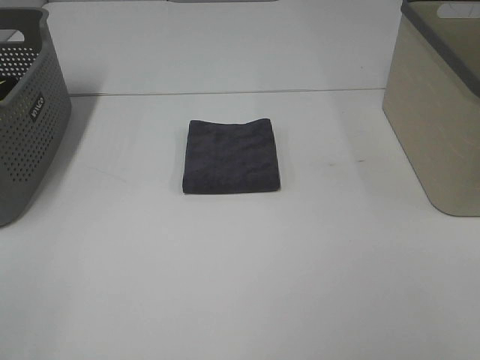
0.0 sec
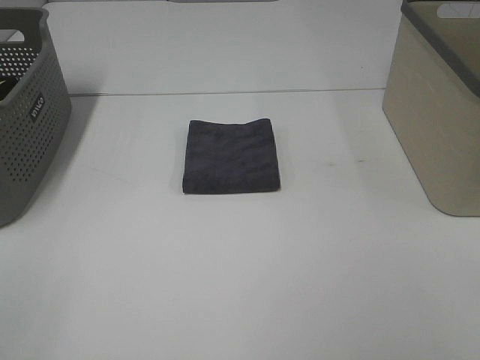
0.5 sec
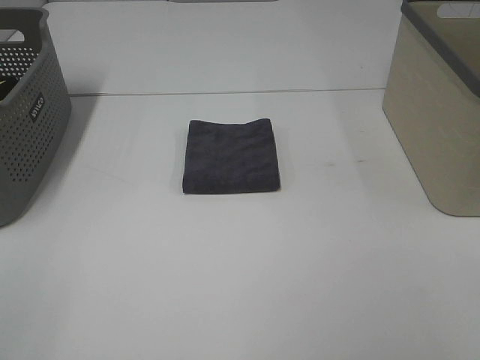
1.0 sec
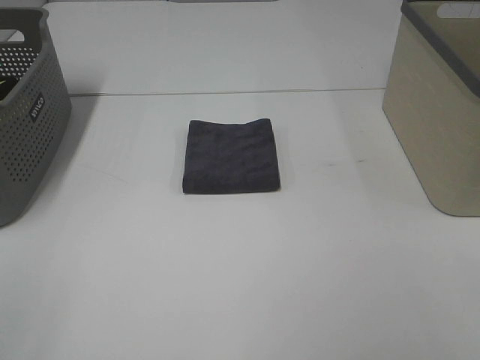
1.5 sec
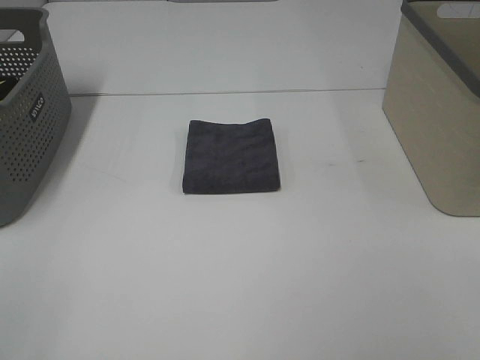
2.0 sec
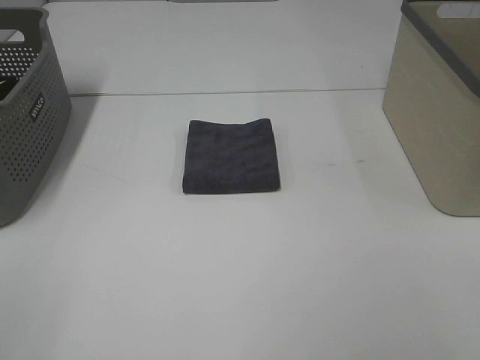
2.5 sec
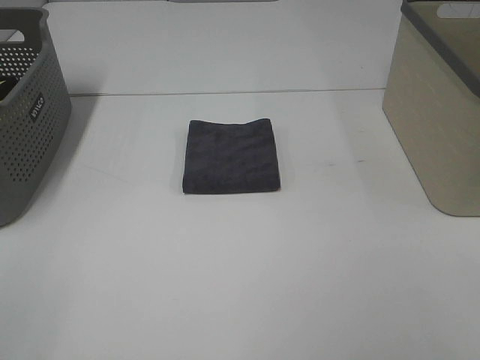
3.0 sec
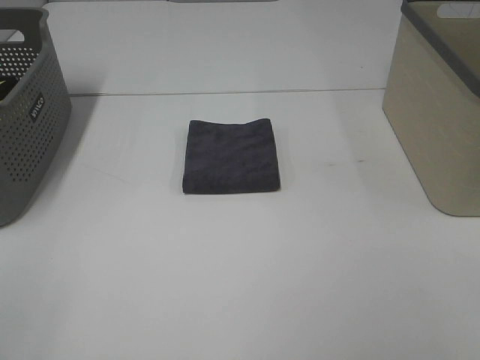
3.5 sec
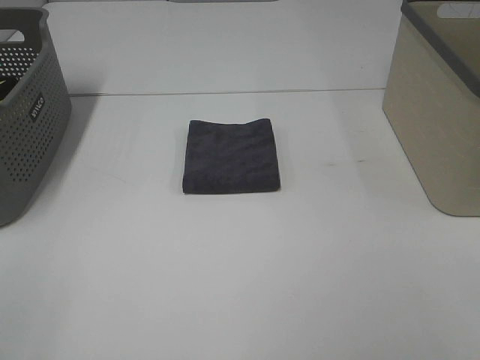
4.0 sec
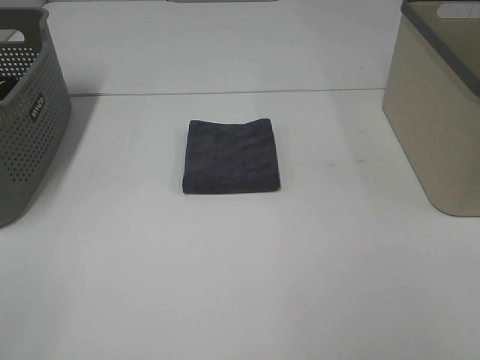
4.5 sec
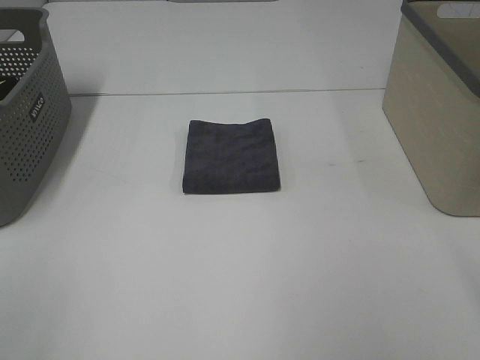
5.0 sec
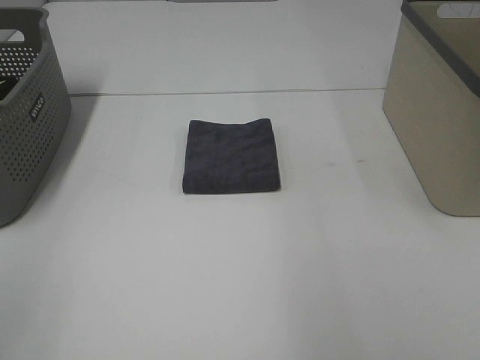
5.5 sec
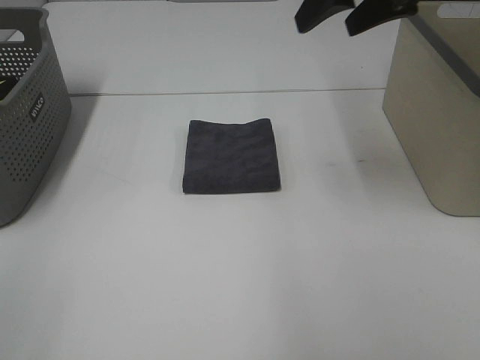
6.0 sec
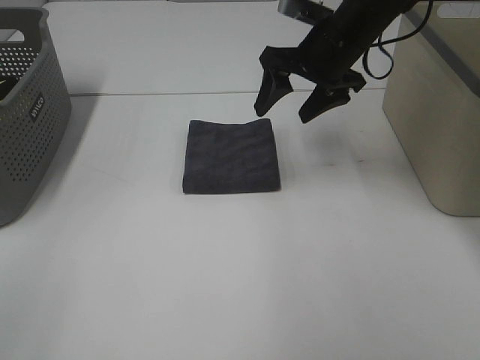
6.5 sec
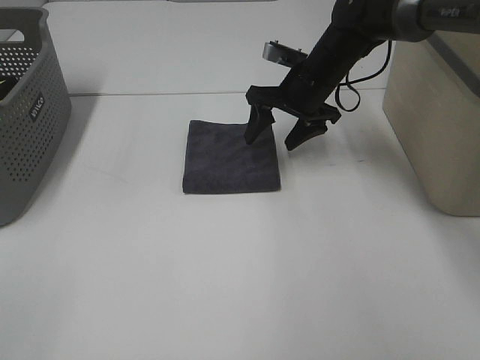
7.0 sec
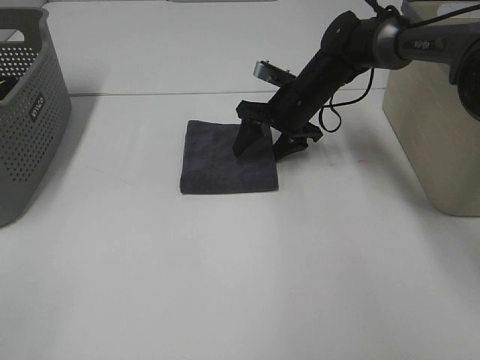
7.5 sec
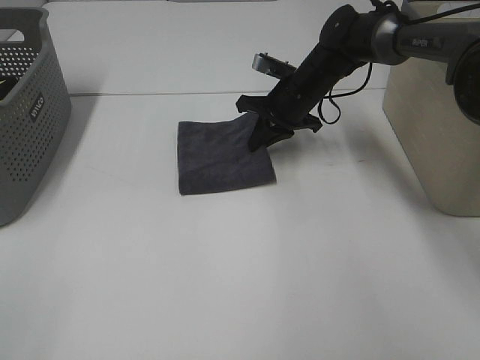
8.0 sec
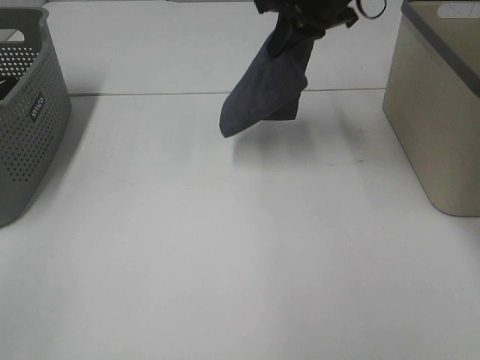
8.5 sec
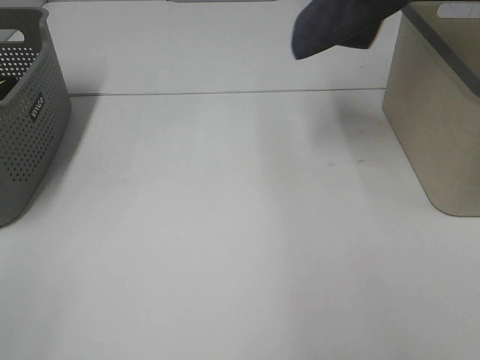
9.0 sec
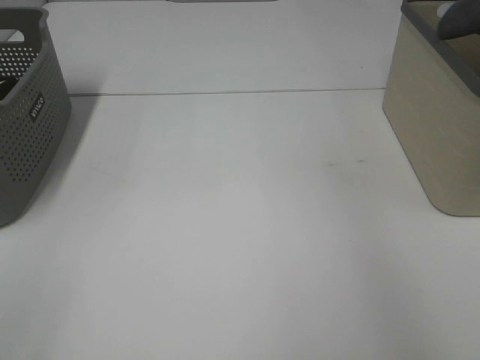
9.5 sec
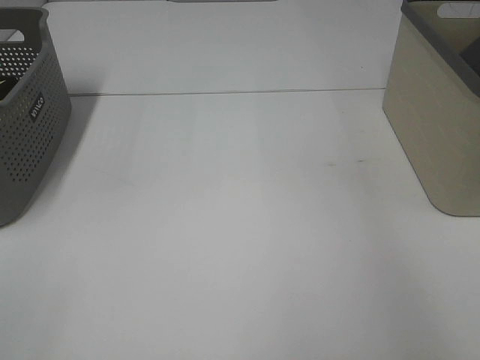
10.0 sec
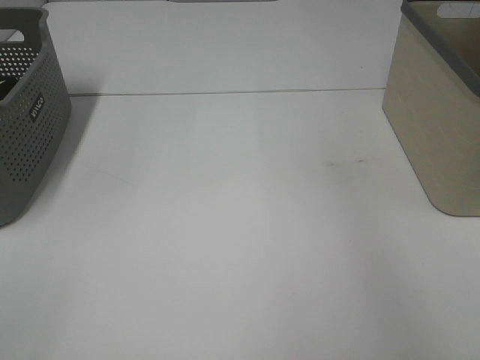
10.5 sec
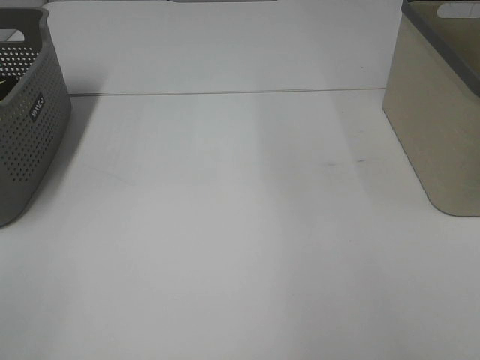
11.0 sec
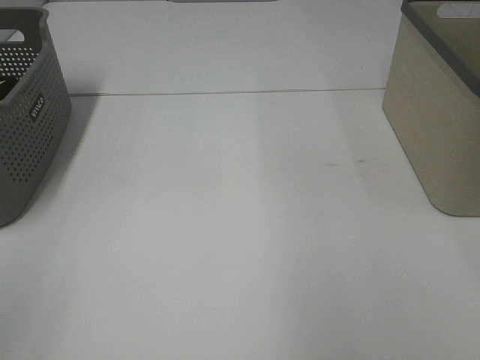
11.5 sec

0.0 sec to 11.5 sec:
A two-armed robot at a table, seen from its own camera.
Step, 0.0 sec to 7.5 sec: Right hand: grab the folded grey towel.
Step, 8.0 sec to 10.0 sec: Right hand: place the grey towel in right basket.
0.0 sec to 4.0 sec: Both grippers stay about where they are.
4.0 sec to 6.0 sec: The right gripper travels forward by about 35 cm.
6.0 sec to 7.5 sec: The right gripper moves downward and forward, about 25 cm.
7.5 sec to 9.5 sec: The right gripper shifts approximately 40 cm upward and to the right, and closes.
9.5 sec to 11.5 sec: The right gripper goes about 20 cm backward and to the left, and opens.

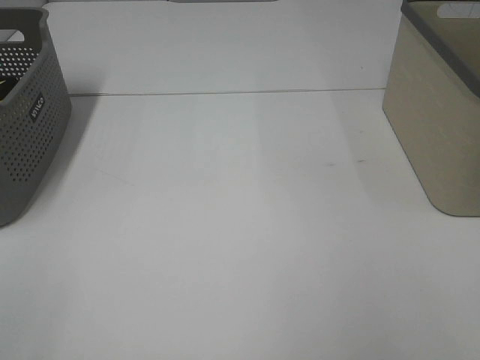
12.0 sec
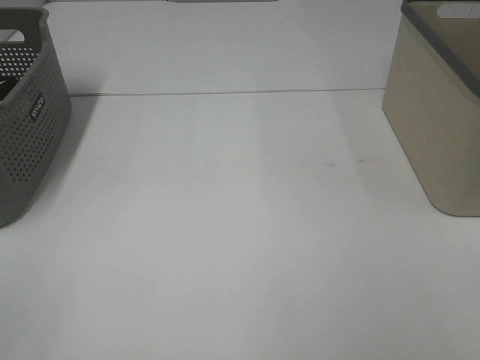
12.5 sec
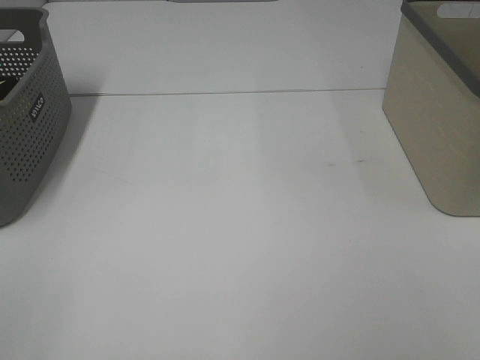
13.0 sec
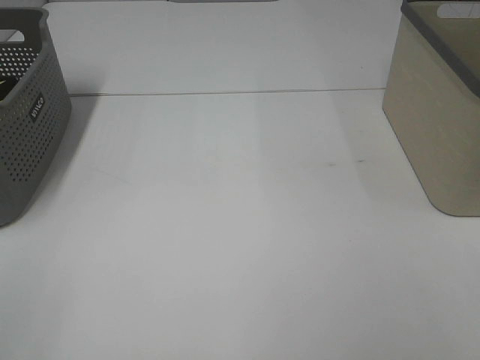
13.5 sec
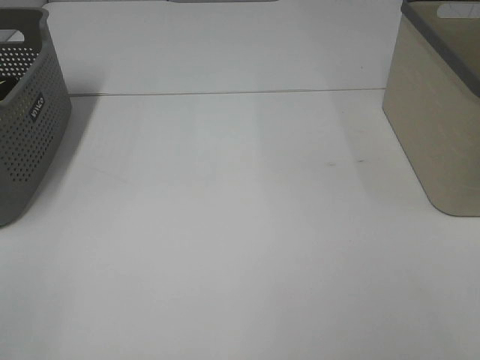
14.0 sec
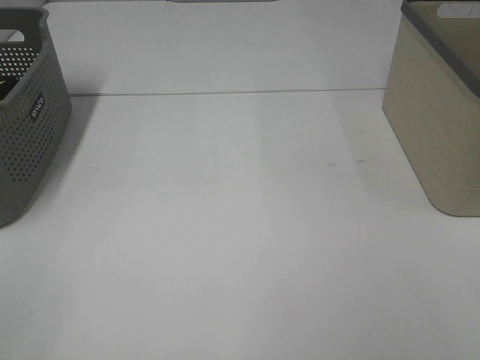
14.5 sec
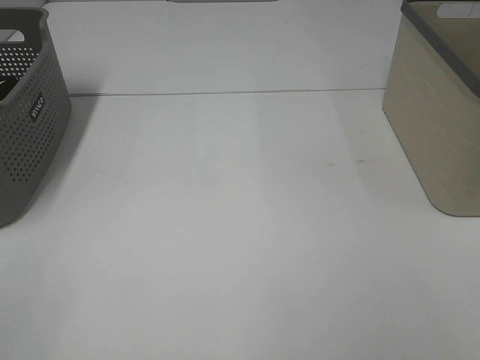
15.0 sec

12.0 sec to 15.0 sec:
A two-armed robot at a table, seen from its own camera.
13.5 sec to 15.0 sec: The two grippers keep their place.

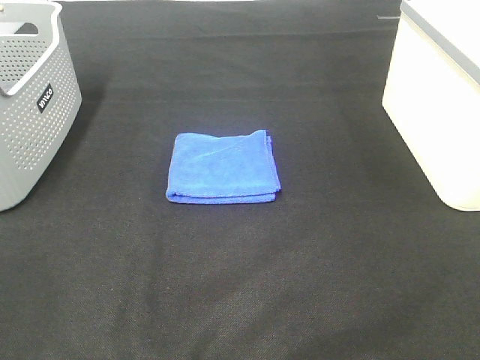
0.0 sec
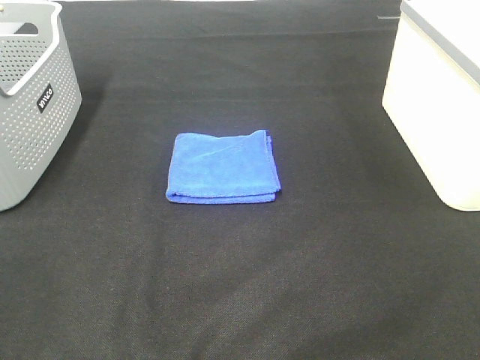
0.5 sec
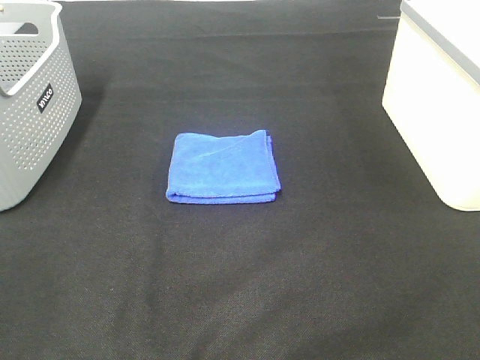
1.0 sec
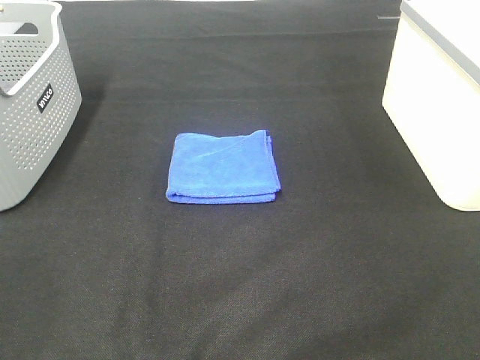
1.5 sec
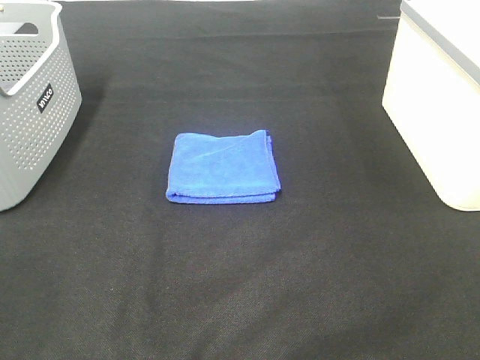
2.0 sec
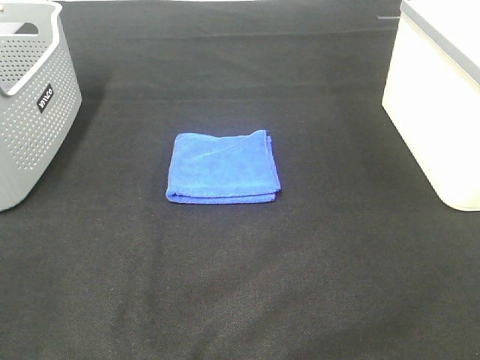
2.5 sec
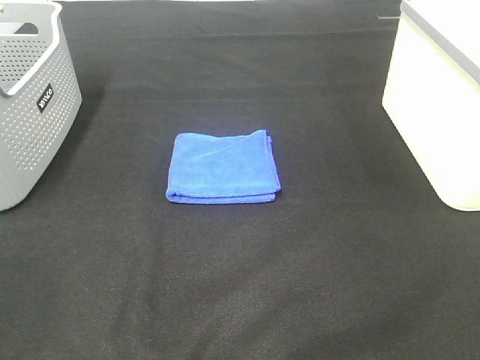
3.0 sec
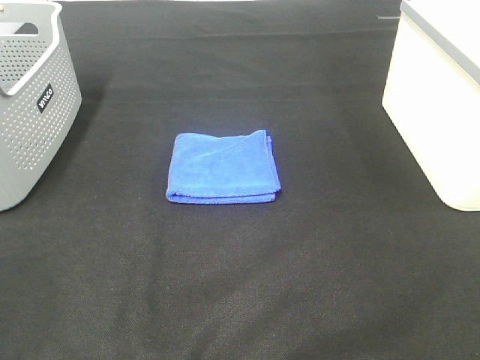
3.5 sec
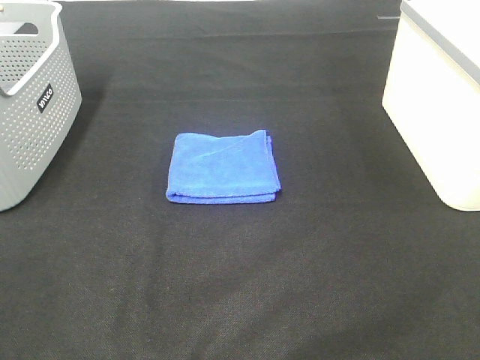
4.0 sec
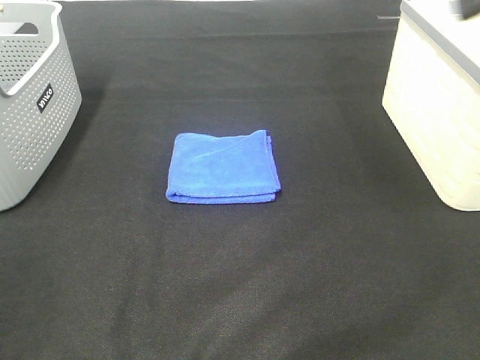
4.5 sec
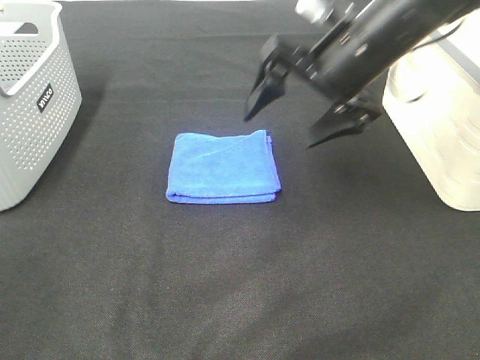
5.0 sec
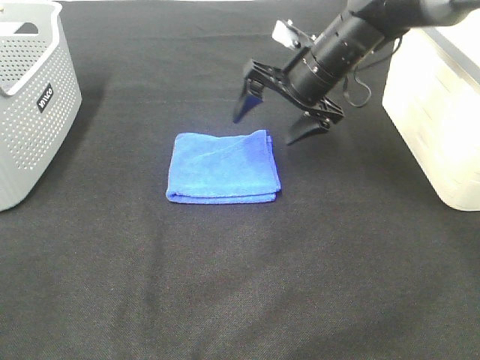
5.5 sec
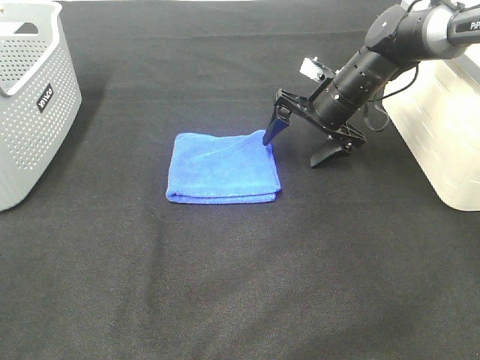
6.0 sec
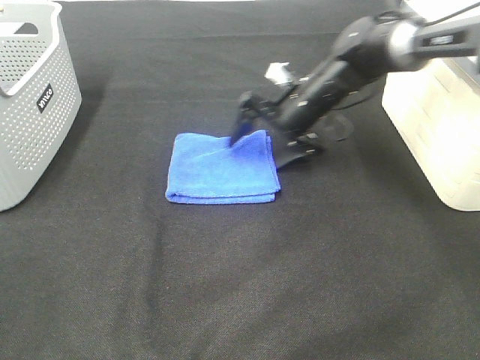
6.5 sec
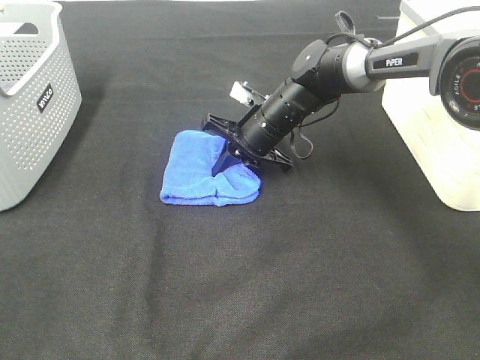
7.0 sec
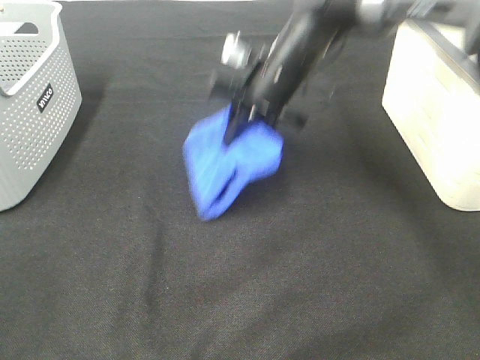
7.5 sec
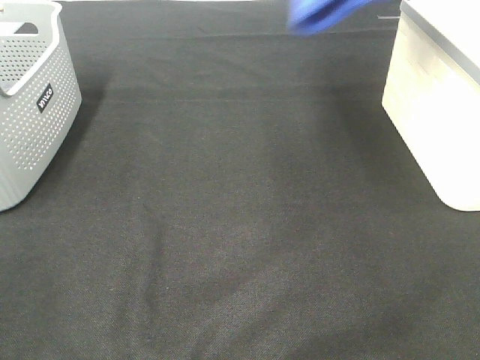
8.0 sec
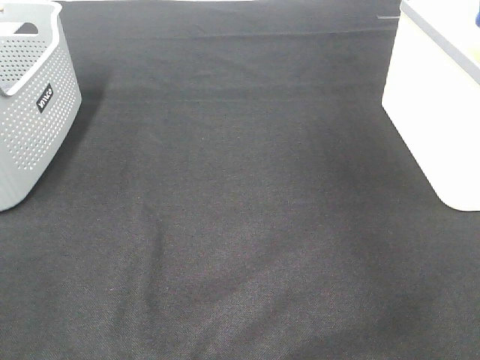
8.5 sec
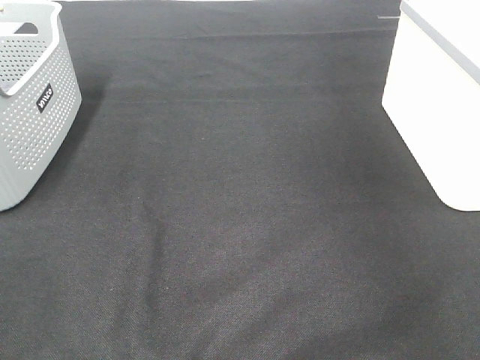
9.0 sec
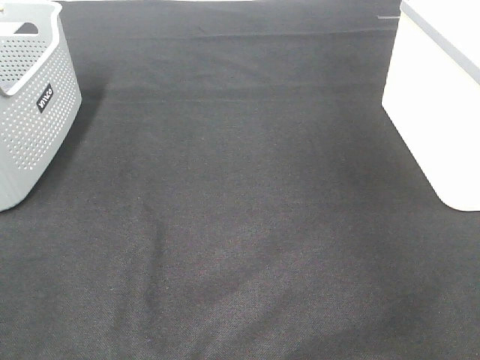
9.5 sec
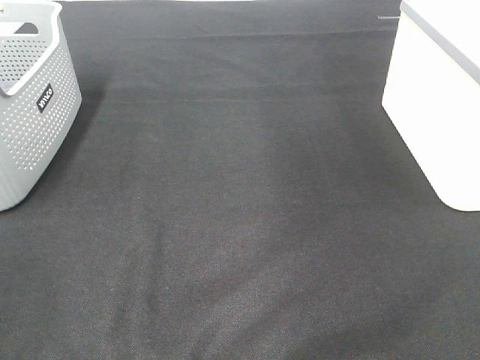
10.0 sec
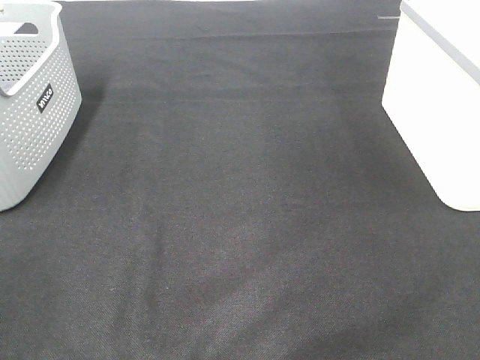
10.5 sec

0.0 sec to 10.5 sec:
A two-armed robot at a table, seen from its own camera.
Step, 0.0 sec to 6.5 sec: Right hand: grab the folded blue towel.
Step, 7.0 sec to 9.0 sec: Right hand: place the blue towel in right basket.
0.0 sec to 2.0 sec: Both grippers stay put.
4.0 sec to 6.5 sec: The right gripper heads forward, downward and to the left, covering some 50 cm.
6.5 sec to 8.5 sec: The right gripper is displaced upward and to the right by roughly 40 cm, and closes.

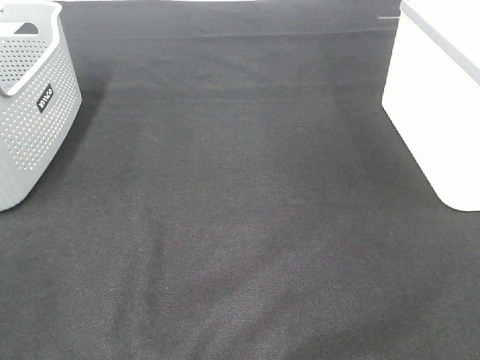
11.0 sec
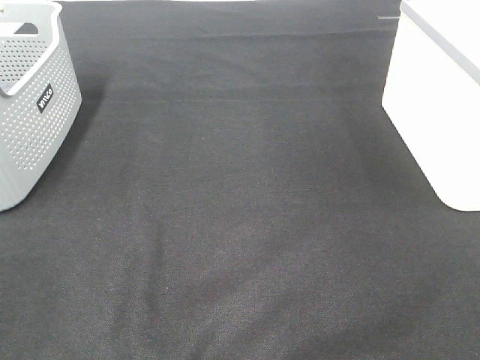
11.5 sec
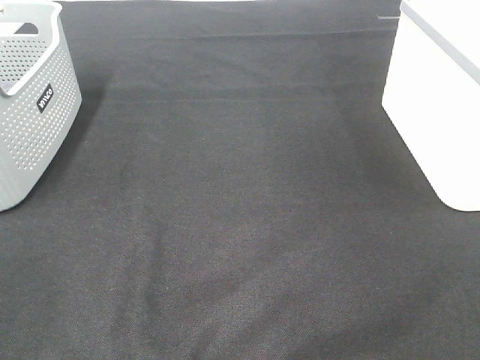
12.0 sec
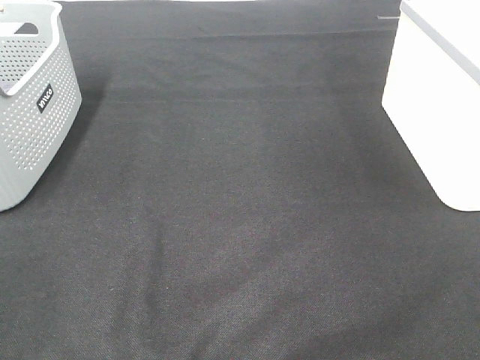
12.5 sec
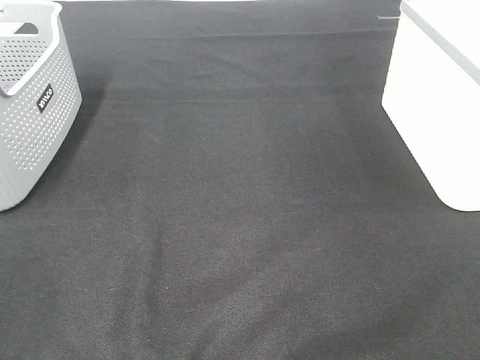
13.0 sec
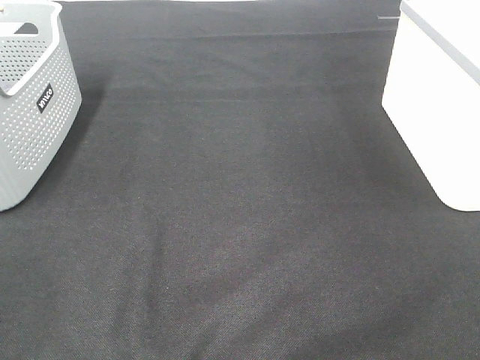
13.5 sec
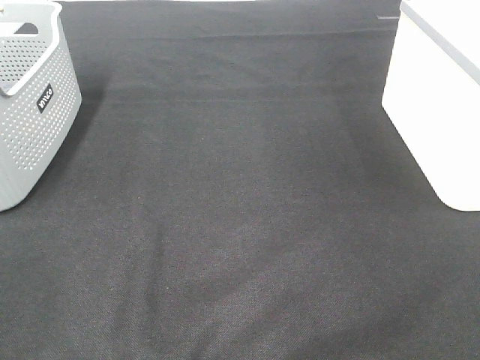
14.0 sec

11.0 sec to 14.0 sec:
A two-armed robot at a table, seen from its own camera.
12.5 sec to 14.0 sec: Both grippers stay about where they are.
